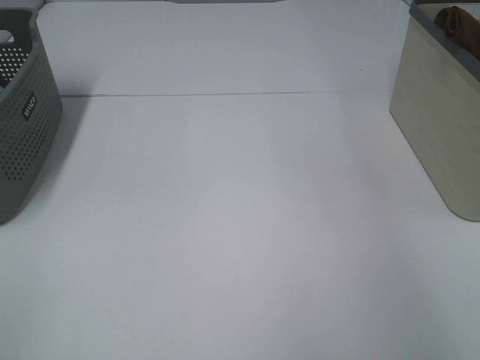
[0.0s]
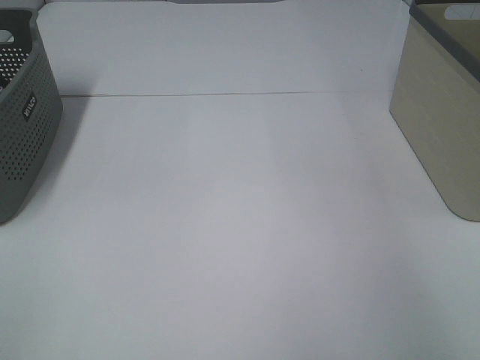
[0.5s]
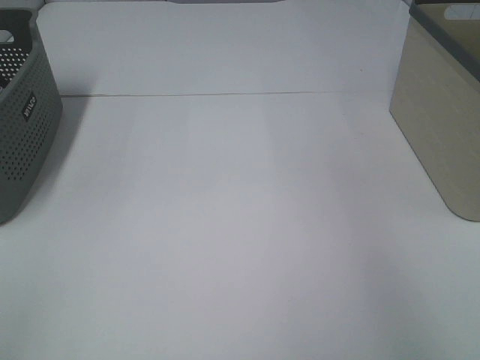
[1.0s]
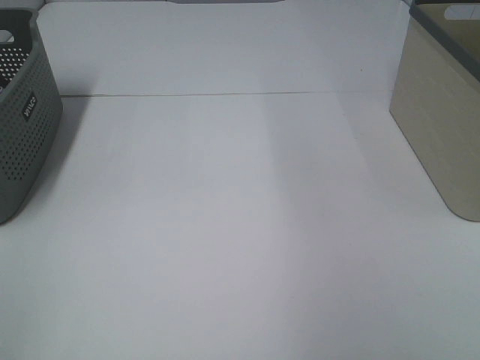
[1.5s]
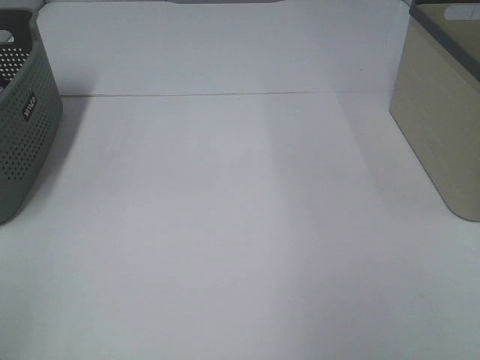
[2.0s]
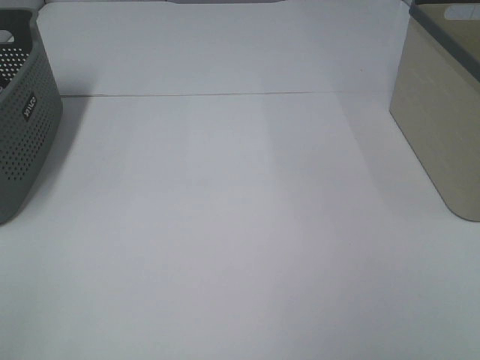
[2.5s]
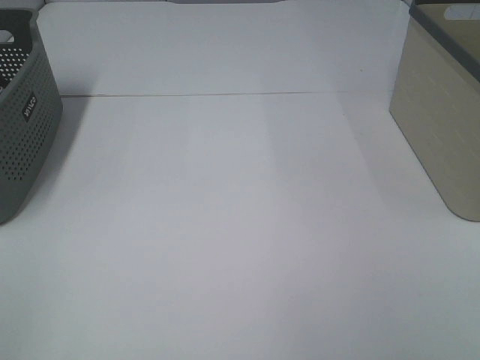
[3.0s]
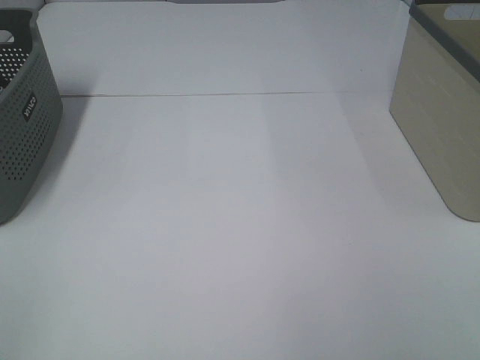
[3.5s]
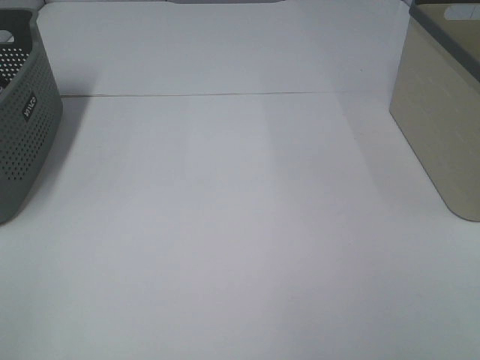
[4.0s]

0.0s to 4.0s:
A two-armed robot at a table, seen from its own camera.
0.0s to 2.0s: The right gripper heads backward and to the left, covering some 25 cm, and opens its fingers.

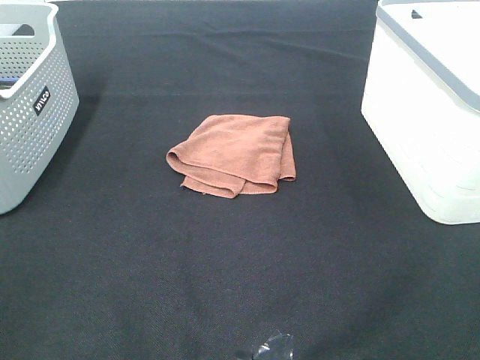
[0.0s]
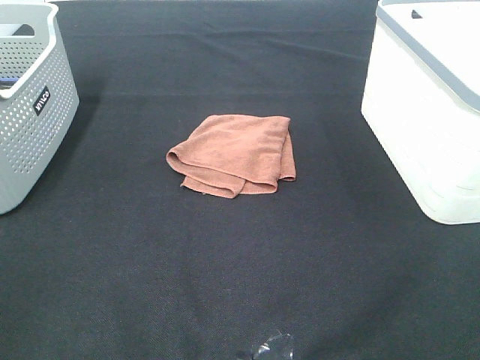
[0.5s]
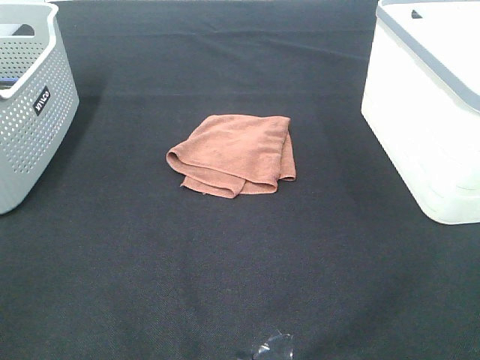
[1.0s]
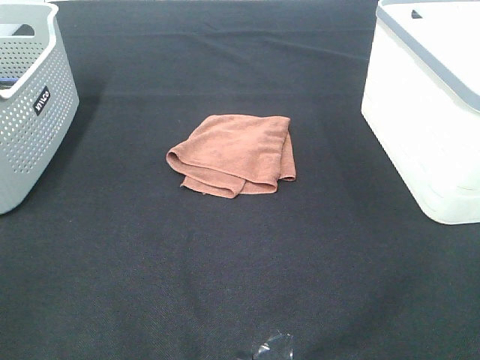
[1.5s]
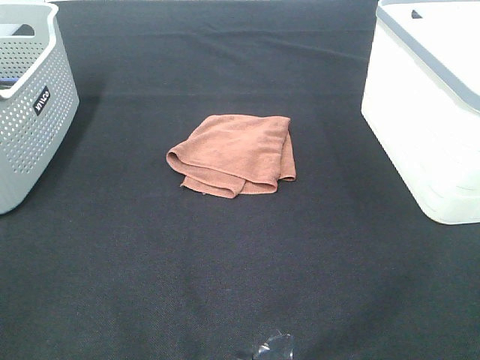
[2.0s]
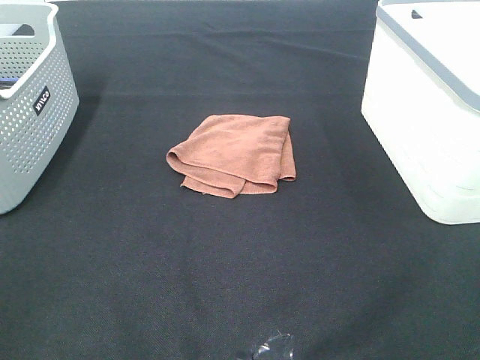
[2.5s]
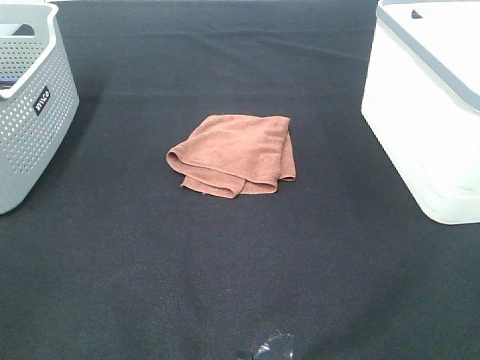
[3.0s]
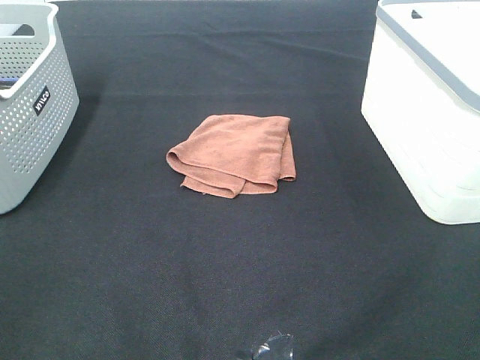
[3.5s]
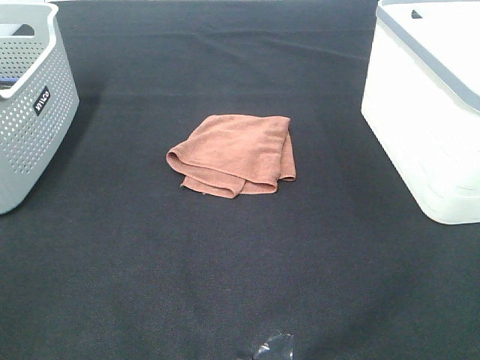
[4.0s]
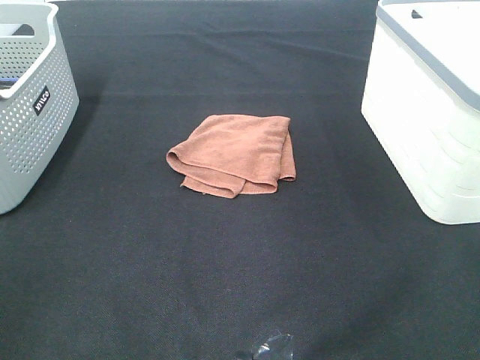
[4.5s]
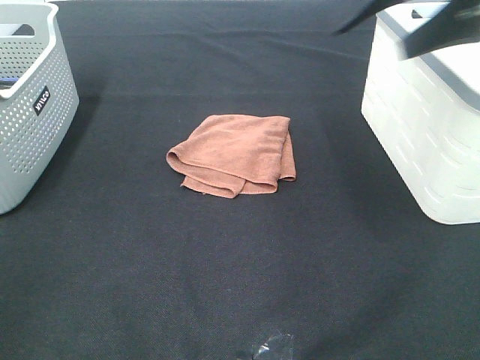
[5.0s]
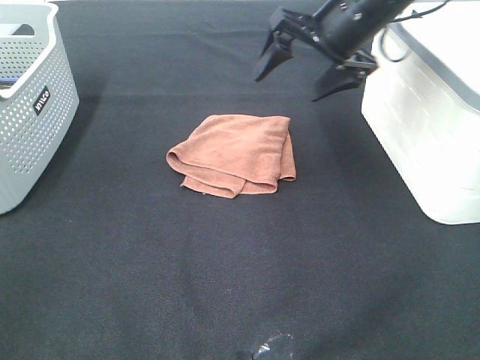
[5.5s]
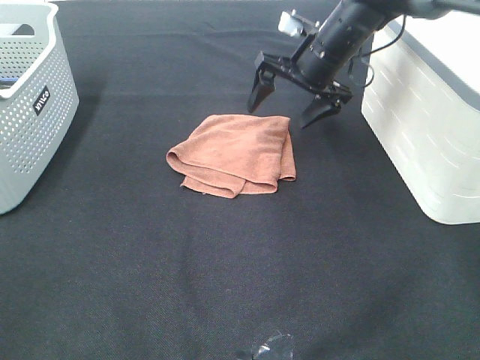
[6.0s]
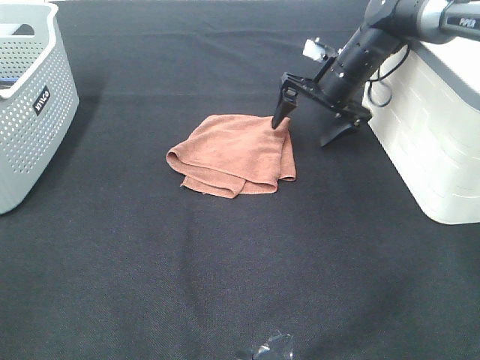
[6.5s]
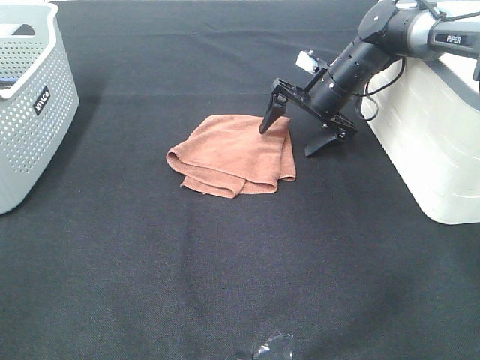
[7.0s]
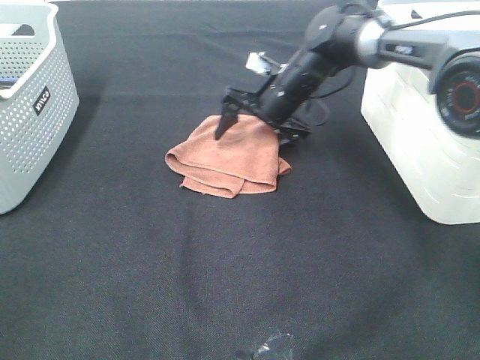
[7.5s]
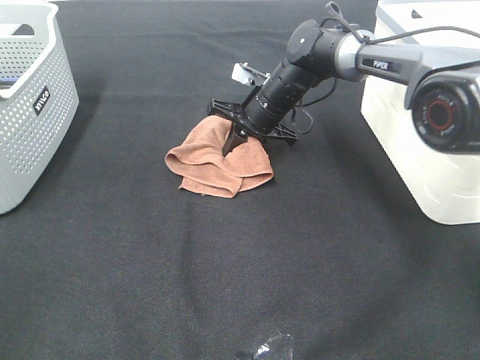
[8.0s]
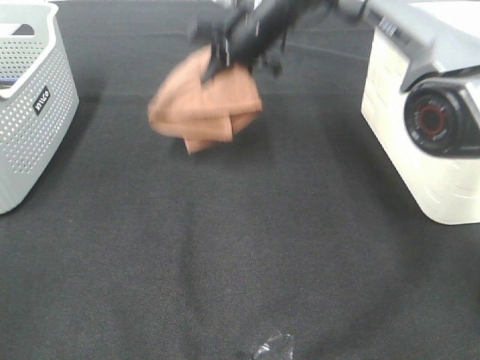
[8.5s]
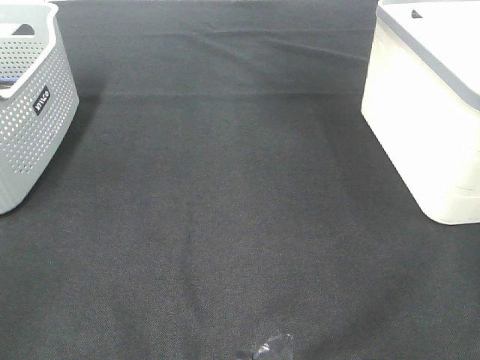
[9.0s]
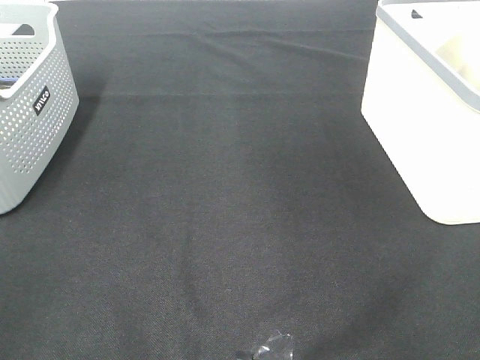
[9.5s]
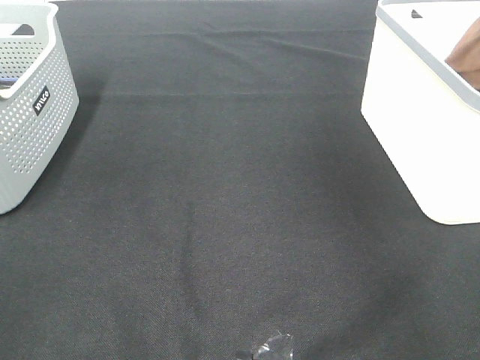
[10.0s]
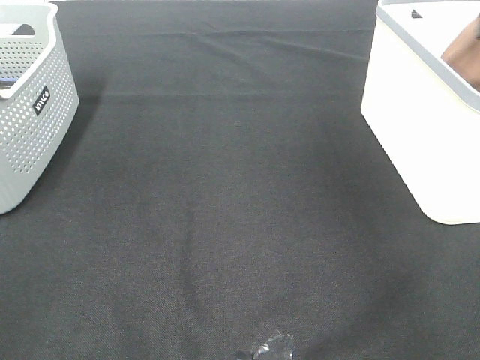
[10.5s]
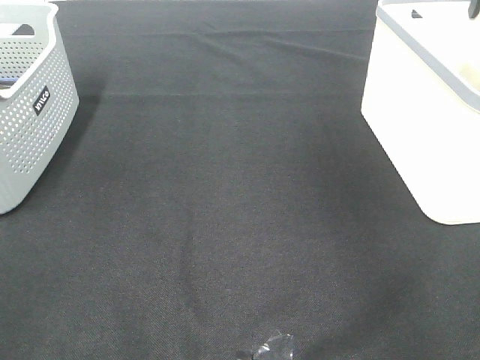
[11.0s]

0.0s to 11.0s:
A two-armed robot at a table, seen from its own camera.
Step, 0.0s to 7.5s: Right hand: grab the folded brown towel.
Step, 8.0s to 10.5s: Right hand: place the brown towel in right basket.
0.0s to 3.5s: Neither gripper changes place.
3.5s to 5.5s: The right gripper goes approximately 40 cm forward.
5.5s to 7.5s: The right gripper heads downward and to the left, covering roughly 15 cm.
7.5s to 9.0s: The right gripper travels upward by about 35 cm, and closes its fingers.
9.0s to 11.0s: The right gripper goes some 20 cm to the right and downward, and opens up.

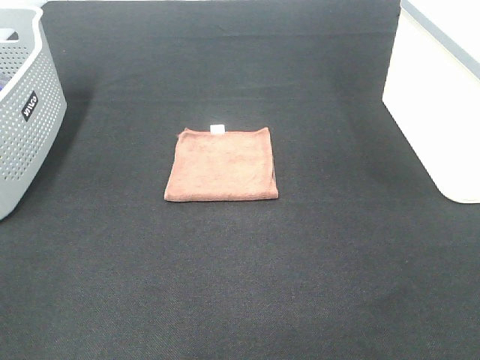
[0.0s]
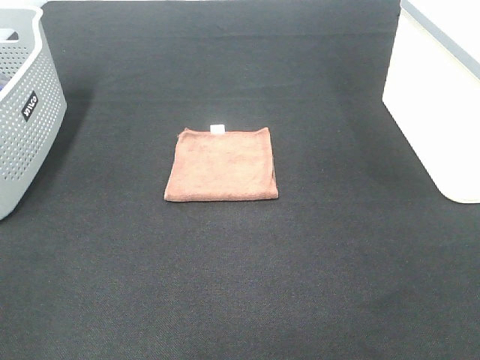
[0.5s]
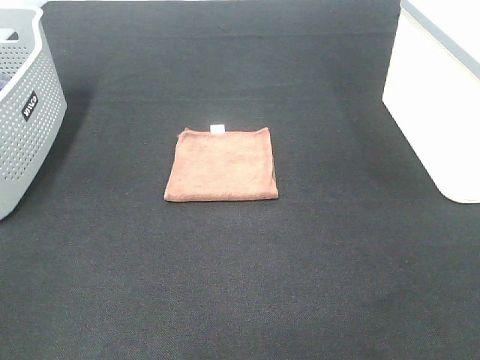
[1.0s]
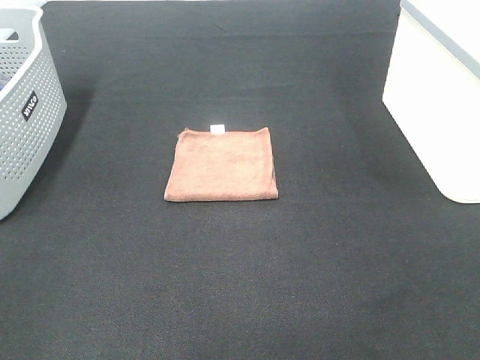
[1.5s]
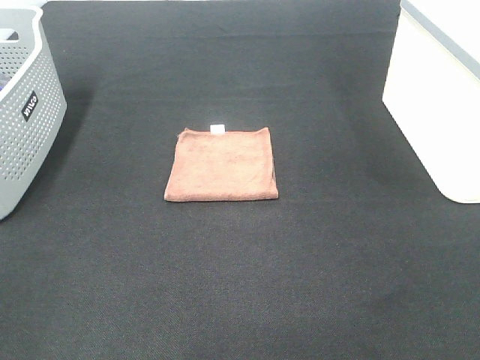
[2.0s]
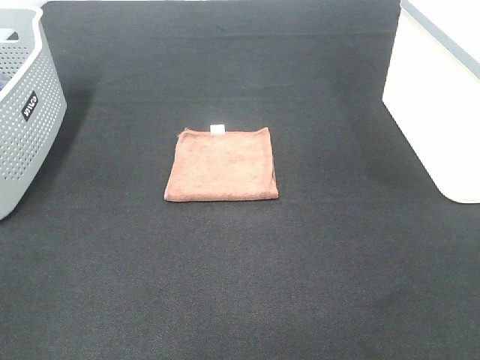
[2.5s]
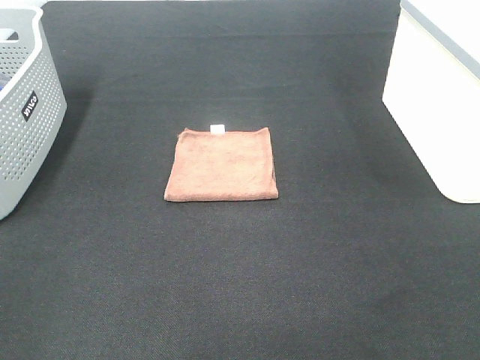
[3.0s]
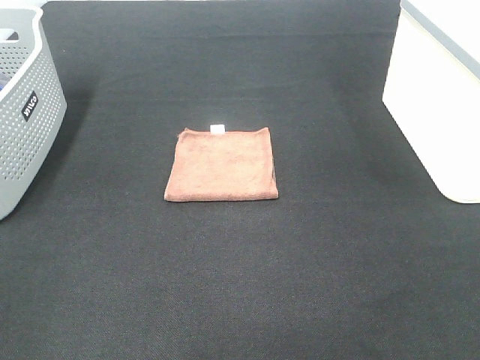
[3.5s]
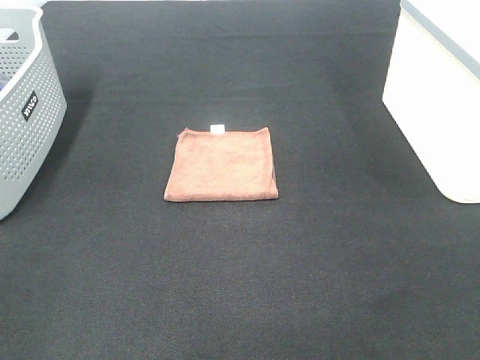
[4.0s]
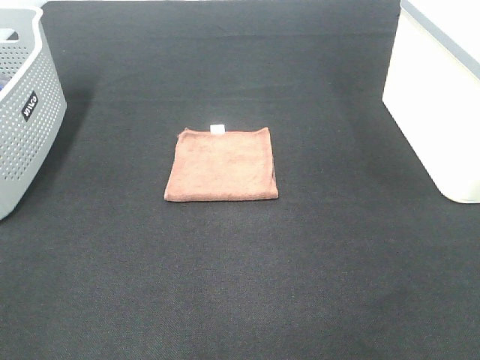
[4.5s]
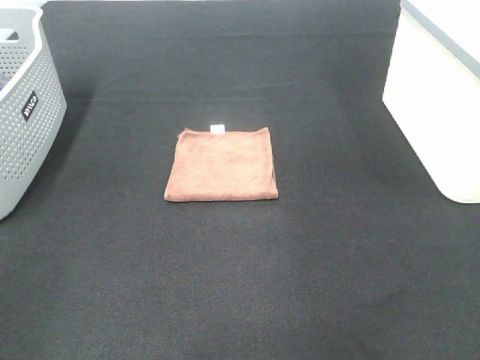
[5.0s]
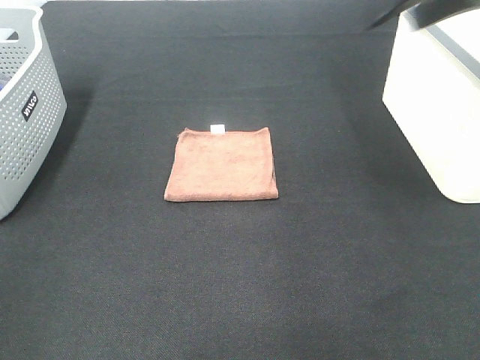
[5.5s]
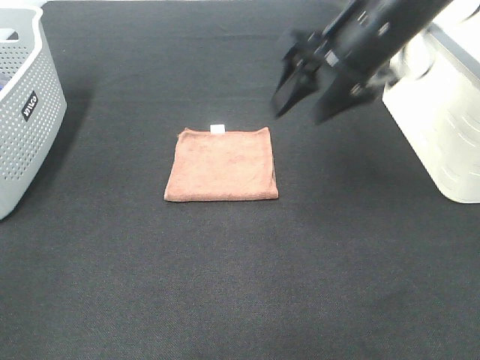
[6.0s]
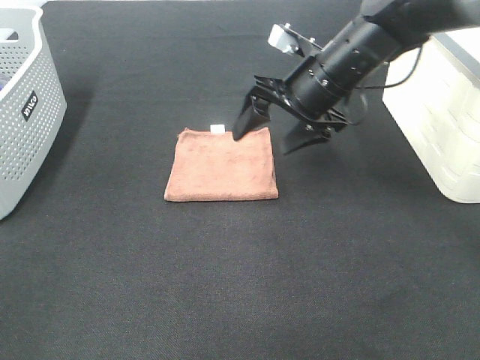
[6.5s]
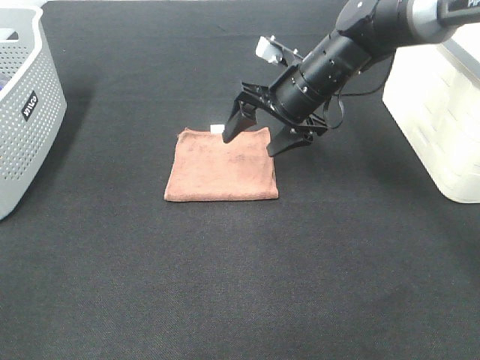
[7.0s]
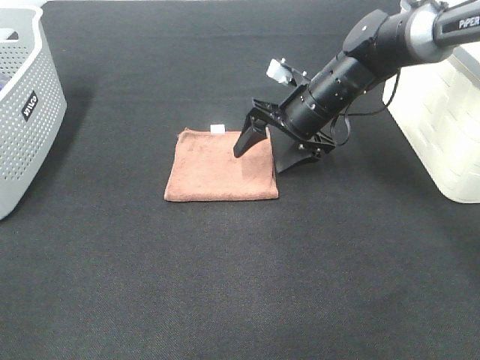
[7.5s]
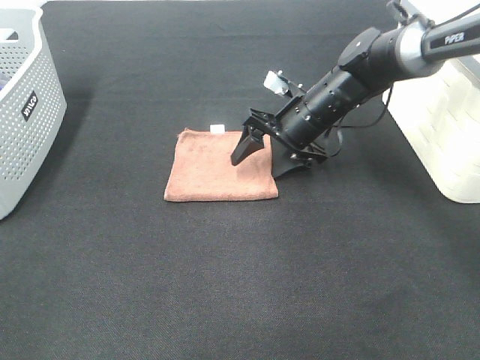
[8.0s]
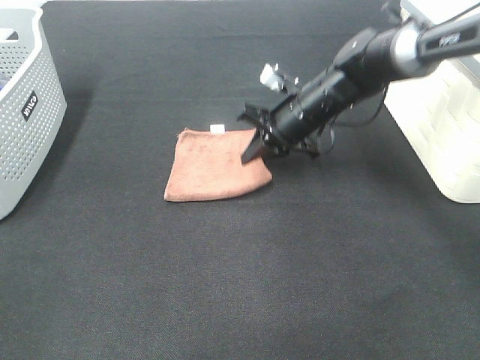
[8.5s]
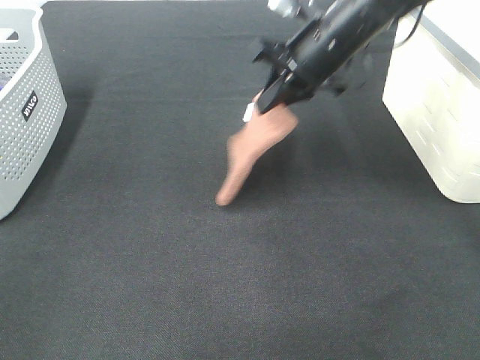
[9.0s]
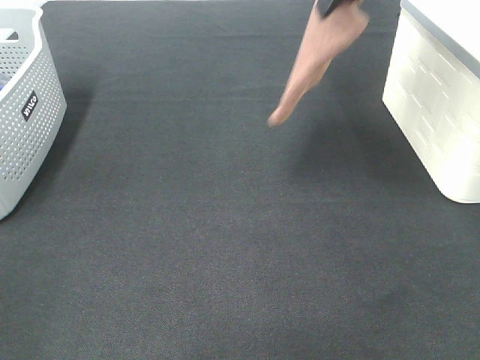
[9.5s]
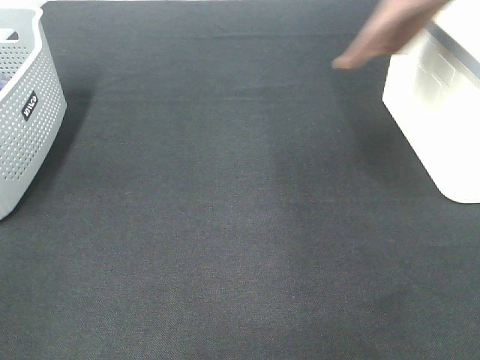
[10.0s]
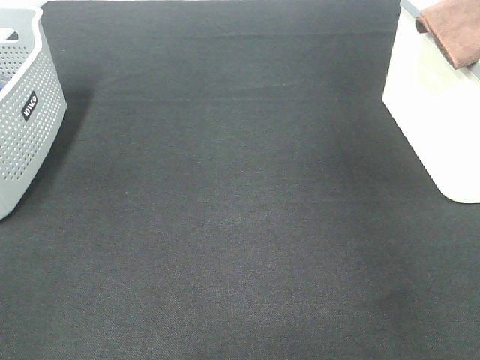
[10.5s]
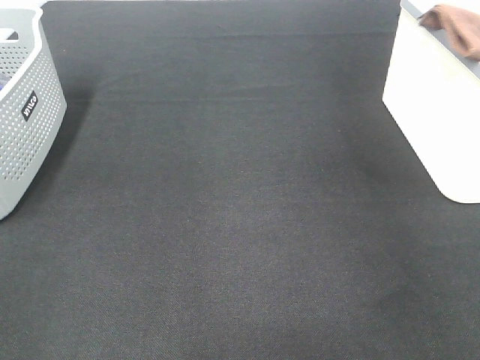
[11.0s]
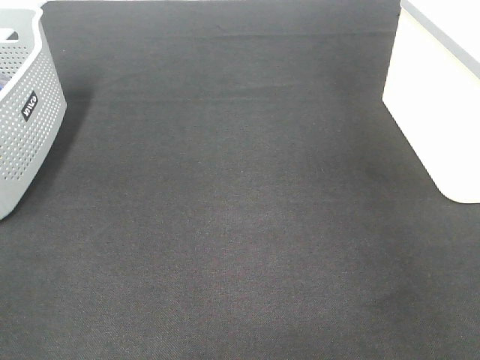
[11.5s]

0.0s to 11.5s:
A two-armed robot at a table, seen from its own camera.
Step, 0.0s to 8.0s: Right hand: grab the folded brown towel.
Step, 8.5s to 11.5s: Right hand: place the brown towel in right basket.
0.0s to 4.0s: Both grippers stay about where they are.
4.0s to 6.0s: The right gripper goes roughly 40 cm forward and to the left.
6.0s to 7.5s: The right gripper travels downward and forward by roughly 15 cm.
7.5s to 9.5s: The right gripper goes about 25 cm upward, and closes.
9.5s to 11.5s: The right gripper shifts approximately 25 cm to the right, and opens up.
